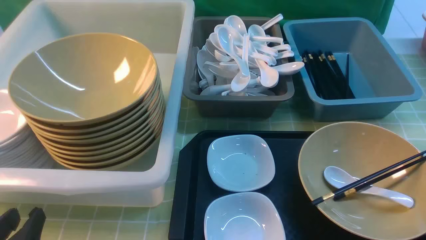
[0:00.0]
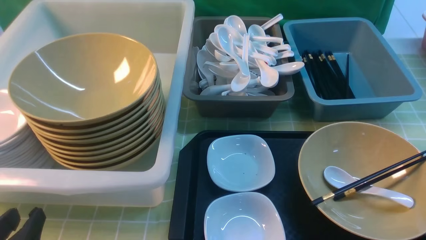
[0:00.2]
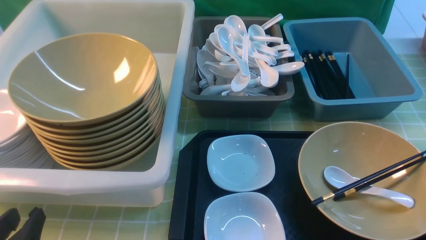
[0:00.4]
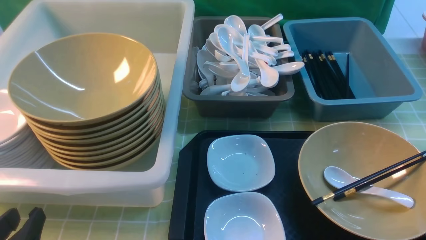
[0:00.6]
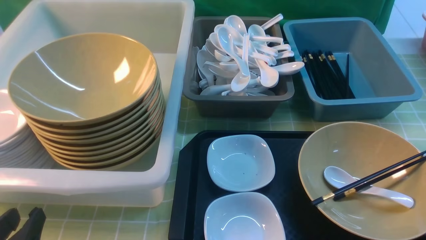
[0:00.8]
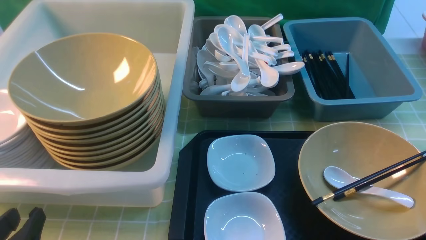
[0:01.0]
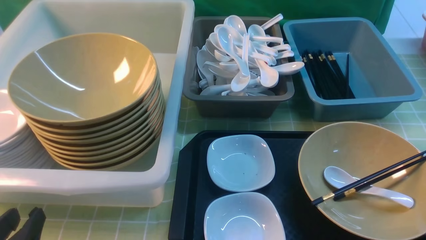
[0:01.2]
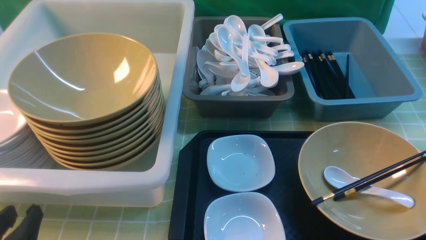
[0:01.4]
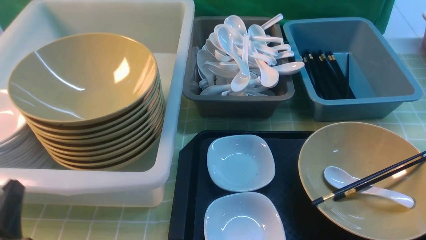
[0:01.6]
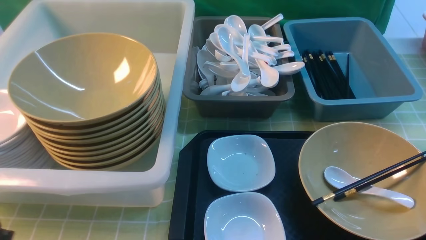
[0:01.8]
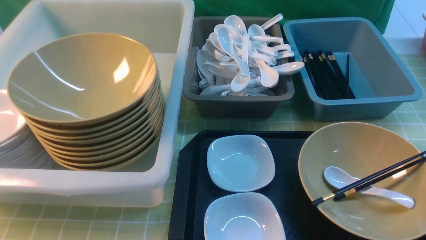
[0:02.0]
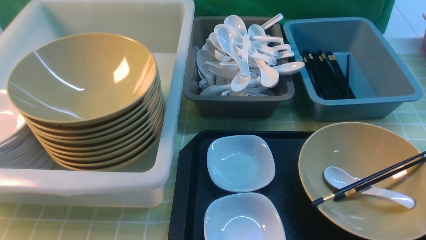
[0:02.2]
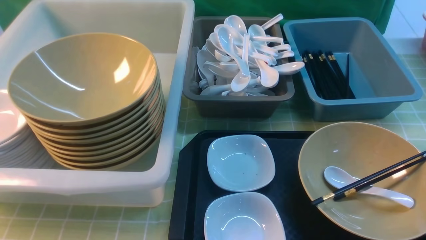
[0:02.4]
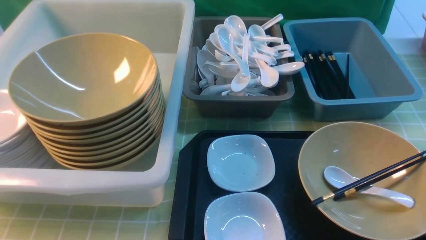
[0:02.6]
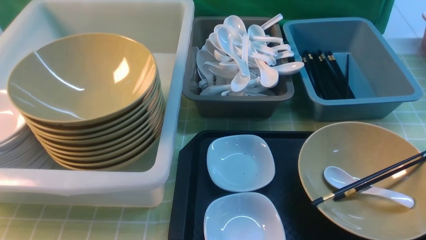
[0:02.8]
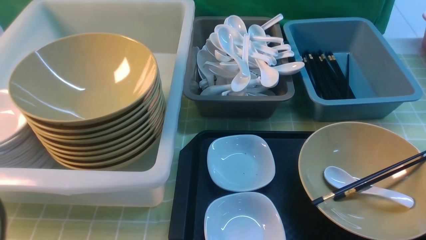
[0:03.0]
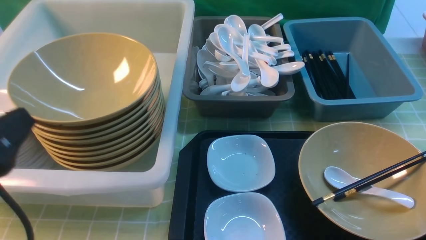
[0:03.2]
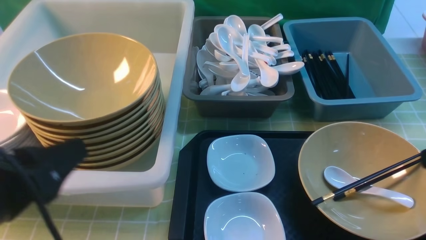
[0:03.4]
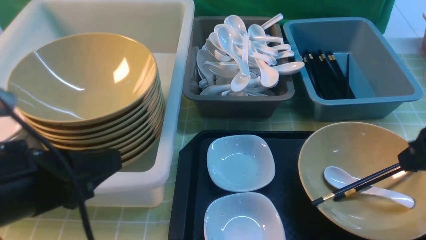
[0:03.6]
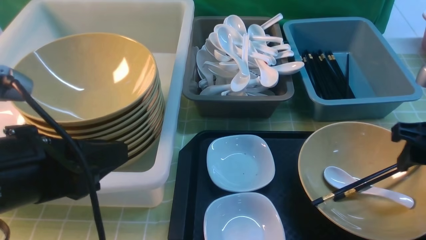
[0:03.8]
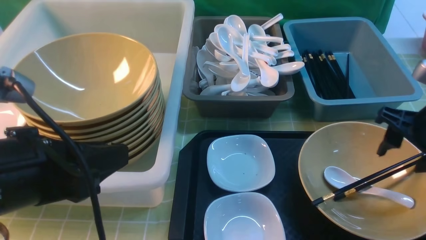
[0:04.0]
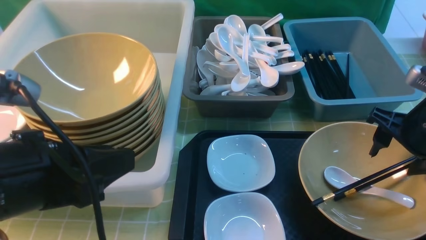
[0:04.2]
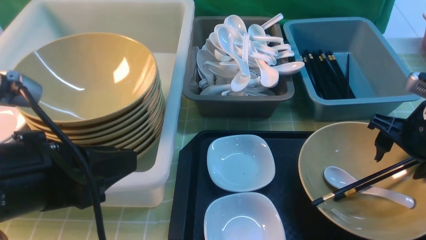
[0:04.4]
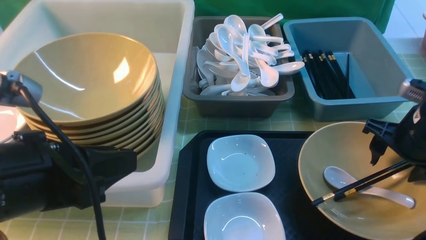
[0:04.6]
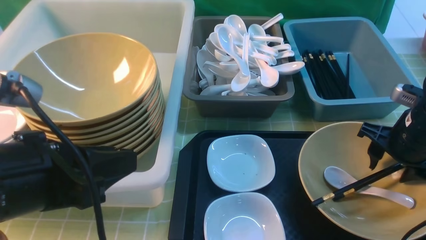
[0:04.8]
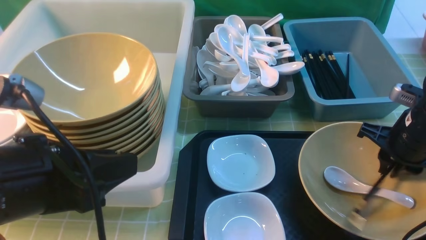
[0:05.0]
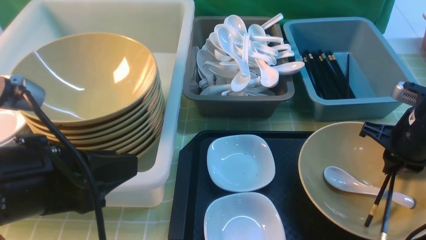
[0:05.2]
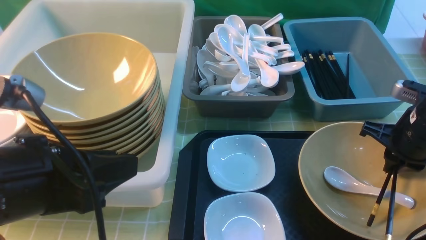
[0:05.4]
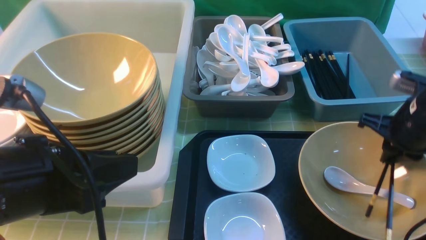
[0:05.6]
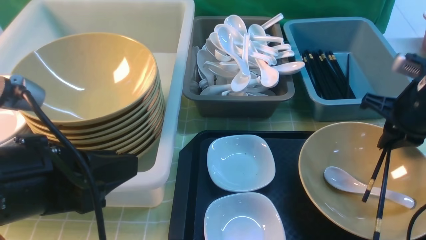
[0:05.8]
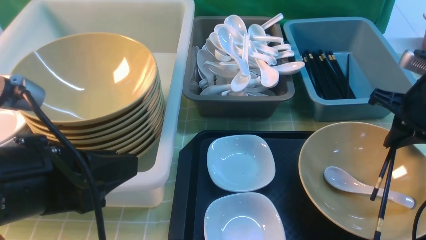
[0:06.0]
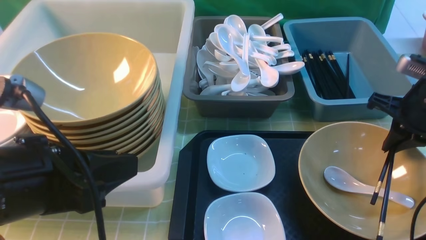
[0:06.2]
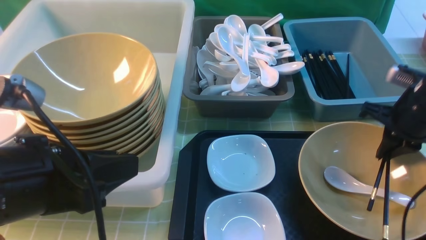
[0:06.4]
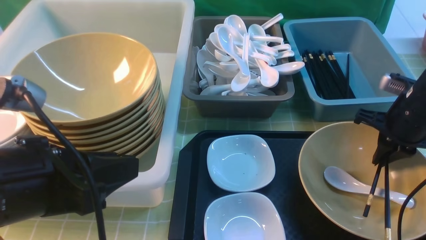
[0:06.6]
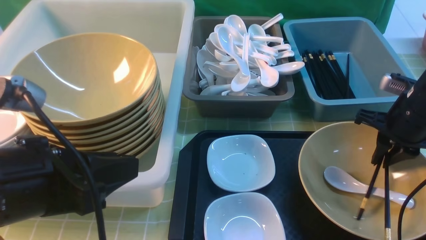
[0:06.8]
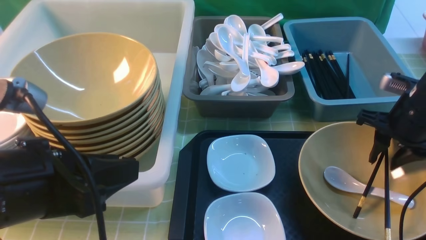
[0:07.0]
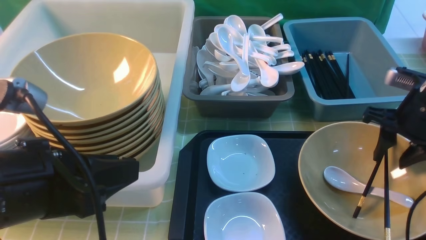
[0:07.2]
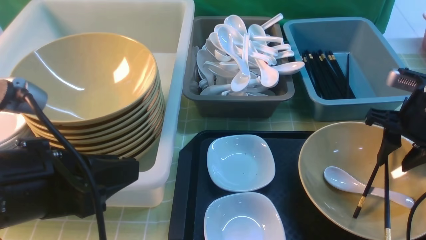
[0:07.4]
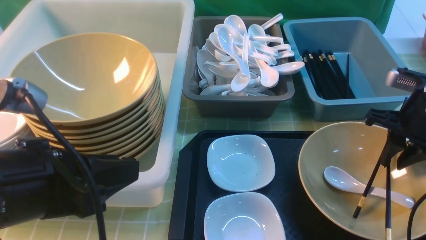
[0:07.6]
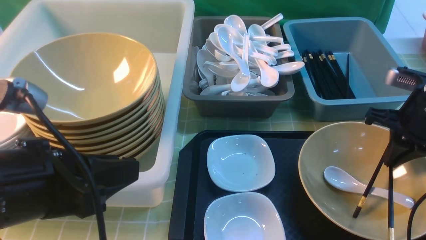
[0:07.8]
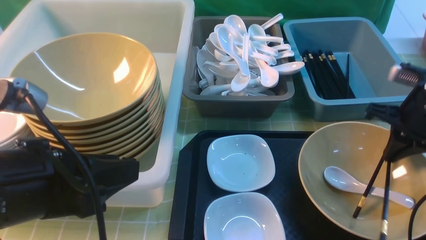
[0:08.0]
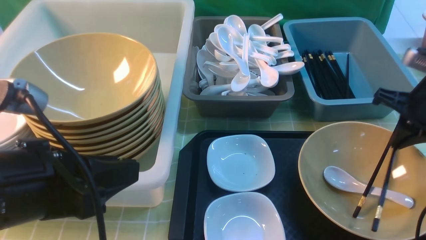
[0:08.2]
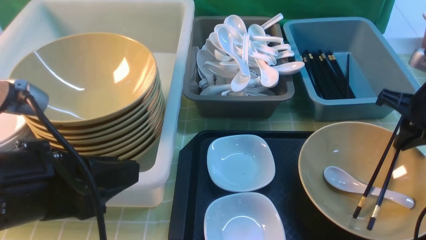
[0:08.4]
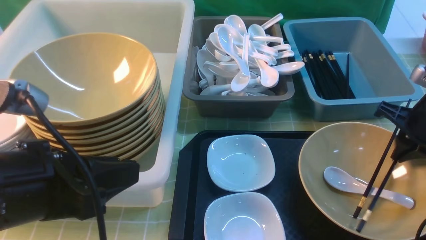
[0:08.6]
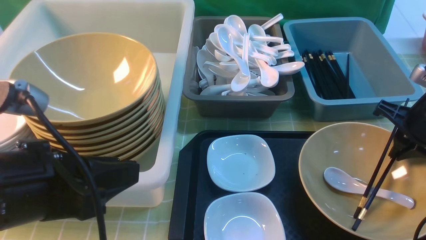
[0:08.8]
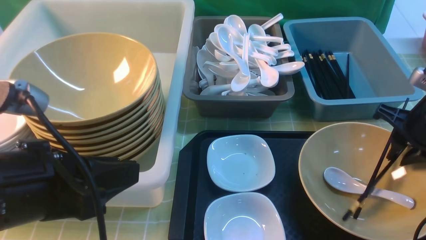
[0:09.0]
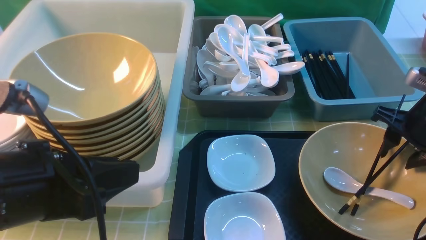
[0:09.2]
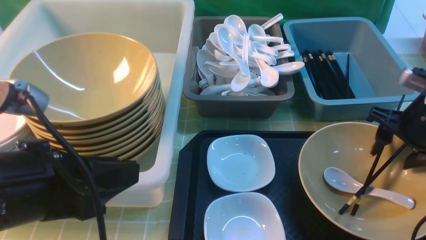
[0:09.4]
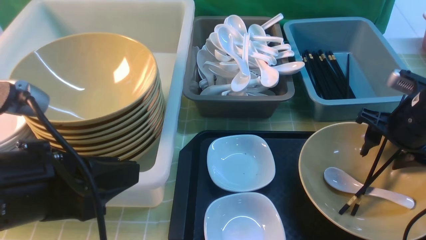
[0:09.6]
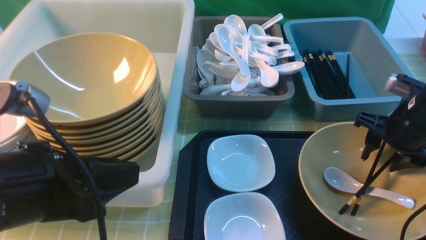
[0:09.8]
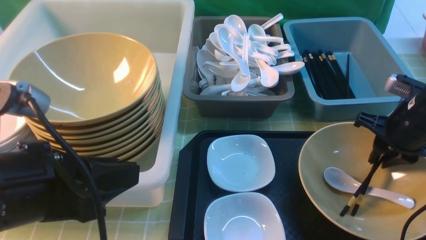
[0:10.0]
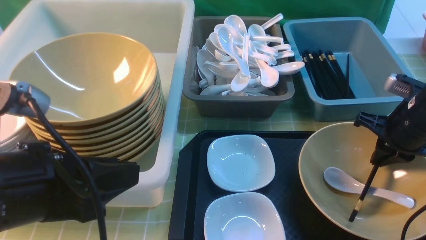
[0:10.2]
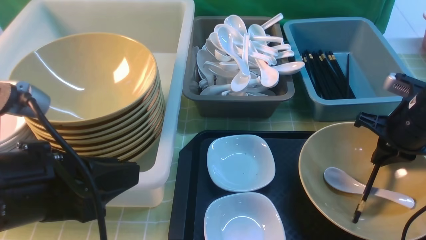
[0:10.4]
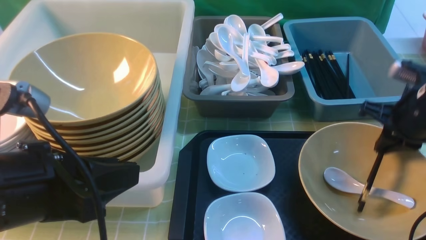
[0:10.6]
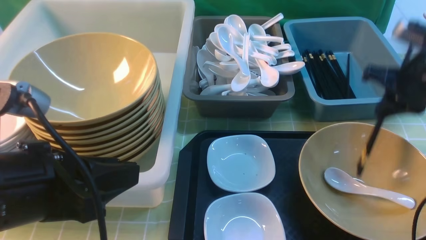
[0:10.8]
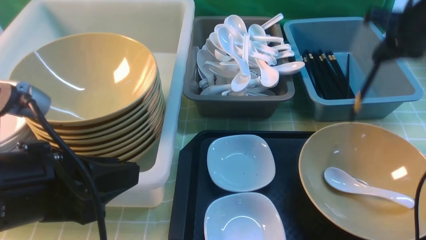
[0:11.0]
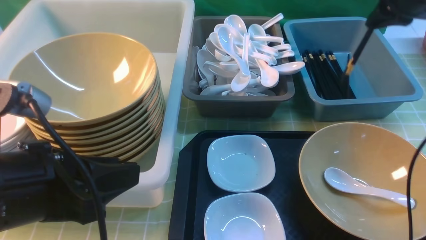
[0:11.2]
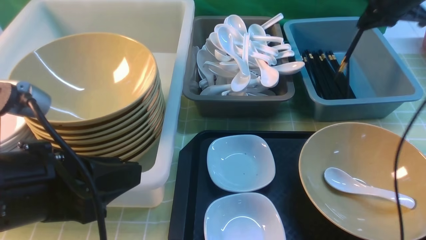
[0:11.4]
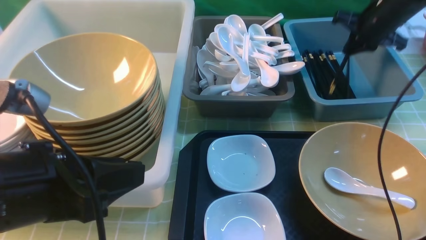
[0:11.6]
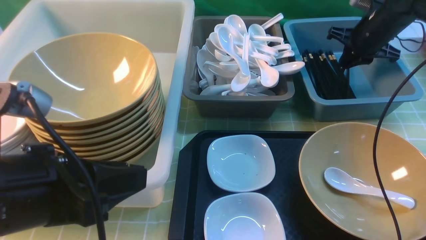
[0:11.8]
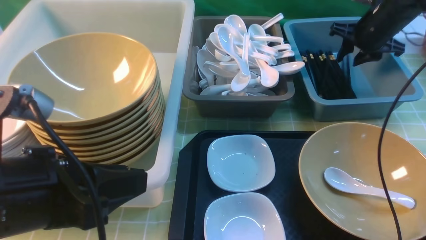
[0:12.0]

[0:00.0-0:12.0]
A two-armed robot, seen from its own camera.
Task of the whole recording: on green table put chopsticks spoon bowls plates into blue grey white boxes.
Step, 0:00.0 to 0:10.6: use the right arm to grab the chopsticks.
0:00.0 to 0:01.6: The grippers stay close to where they were, moving slightly.
0:01.6 to 0:03.0: The left gripper travels upward by roughly 15 cm.
0:03.0 to 0:04.4: The left gripper heads to the right, covering roughly 5 cm. Meanwhile the right gripper travels forward and downward by roughly 20 cm.
0:04.4 to 0:06.0: The right gripper closes.
0:06.0 to 0:09.0: The grippers move only a little.
0:09.0 to 0:10.4: The right gripper opens and closes again.
0:10.4 to 0:12.0: The right gripper goes some 20 cm forward, and opens up.

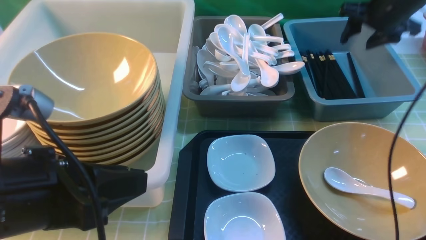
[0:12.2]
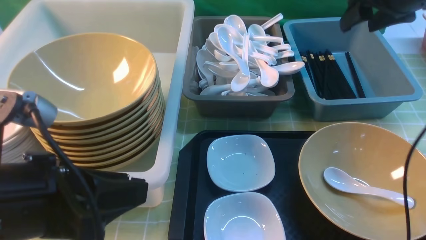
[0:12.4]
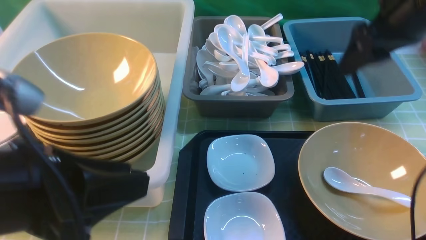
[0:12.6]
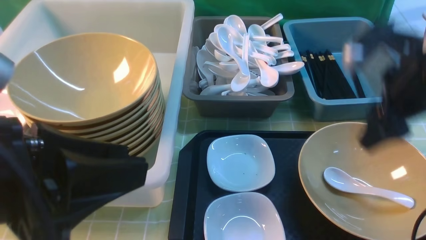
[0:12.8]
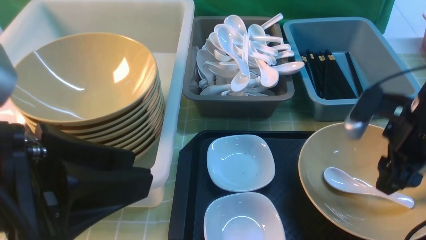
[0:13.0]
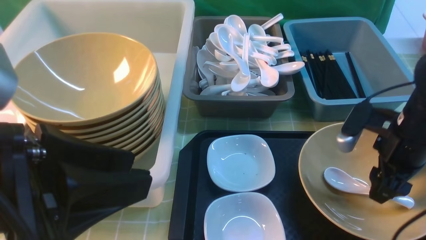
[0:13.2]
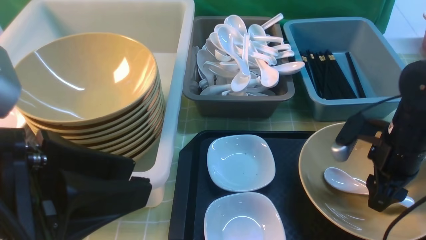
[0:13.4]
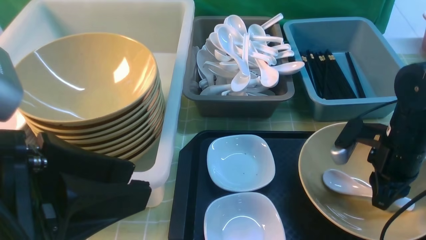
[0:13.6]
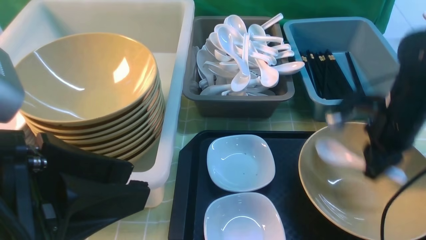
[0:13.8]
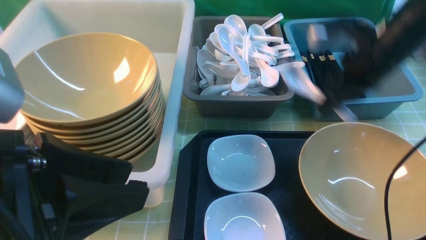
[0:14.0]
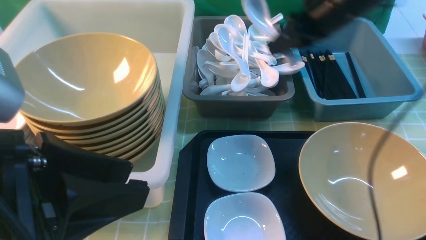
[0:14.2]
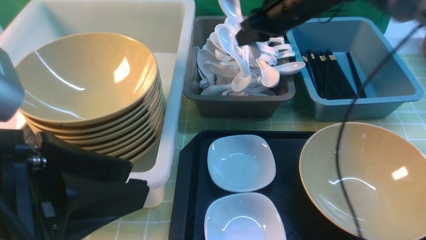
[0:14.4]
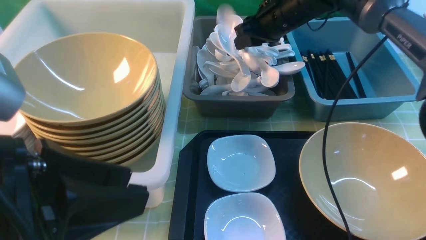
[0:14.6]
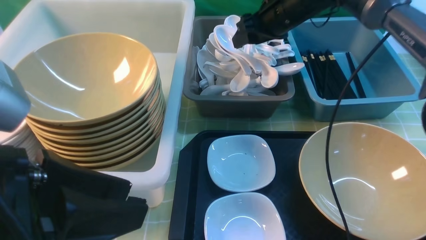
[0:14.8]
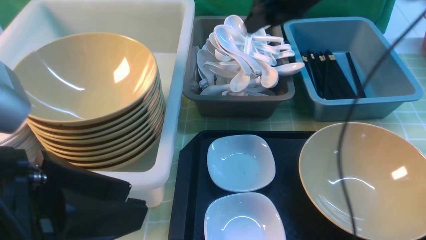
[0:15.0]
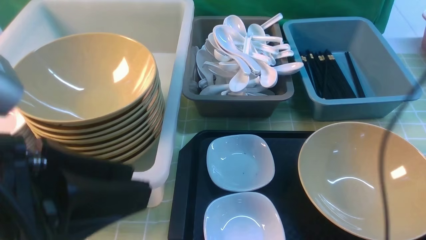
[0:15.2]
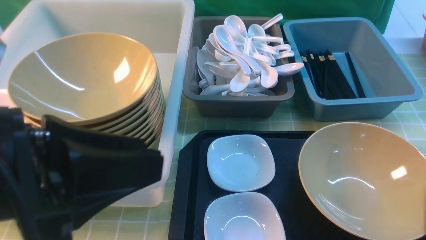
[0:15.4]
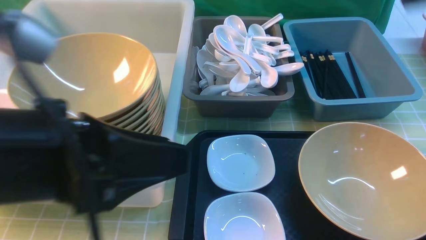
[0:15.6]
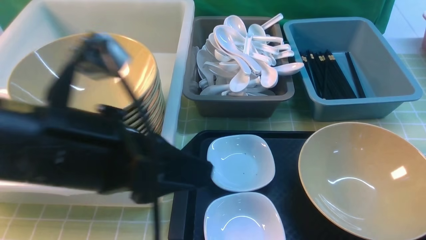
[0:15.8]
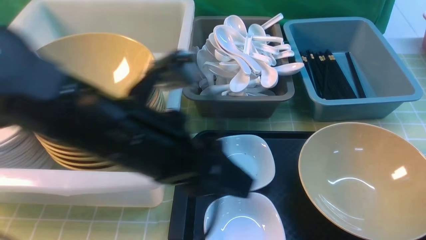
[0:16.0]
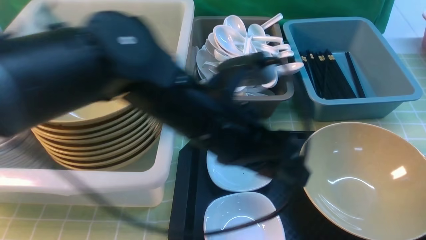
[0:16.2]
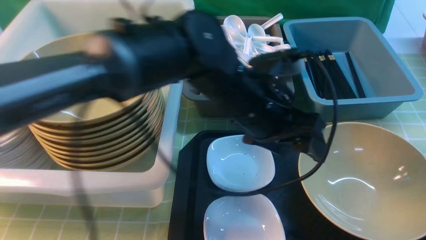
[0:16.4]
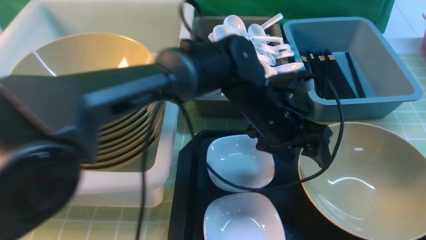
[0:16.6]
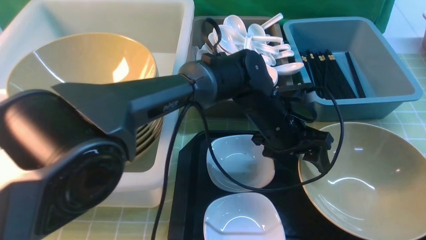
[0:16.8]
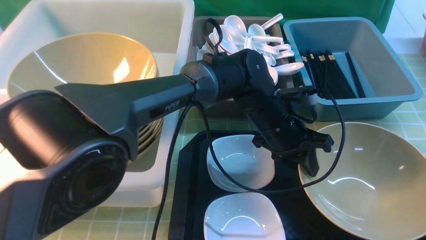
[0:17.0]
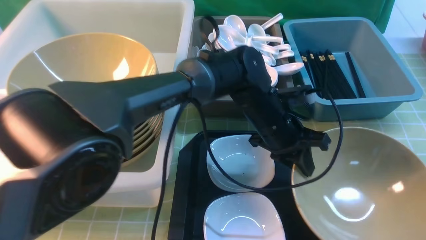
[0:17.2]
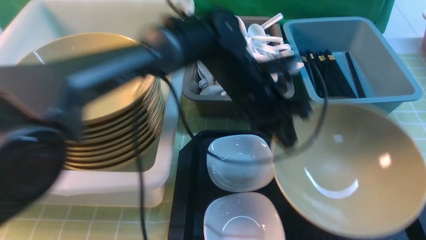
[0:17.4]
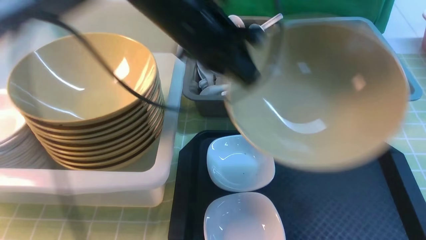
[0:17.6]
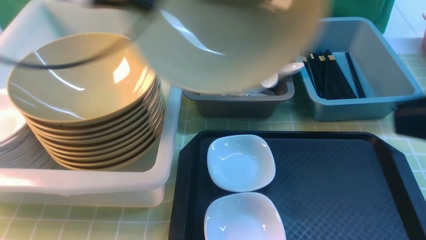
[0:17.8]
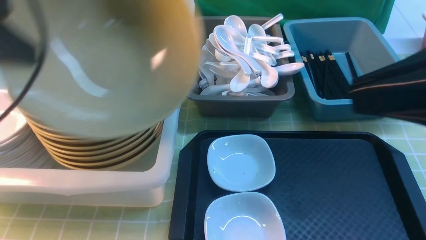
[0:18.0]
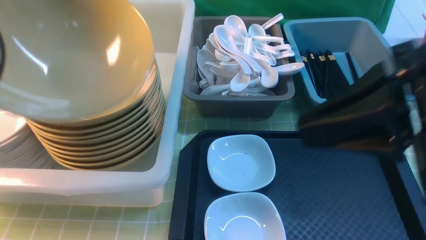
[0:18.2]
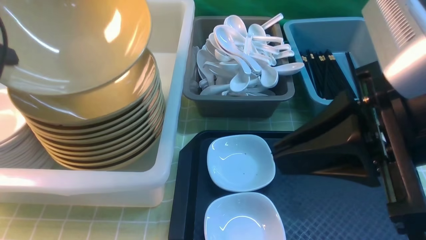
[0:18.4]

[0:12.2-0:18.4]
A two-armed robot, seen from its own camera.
Task of the whole recording: on green table put chopsticks spoon bowls plates into blue grey white boxes.
Step, 0:12.8 to 0:13.8: use the right arm to grab the soup spoon in the middle.
Step, 0:14.0 to 0:15.4: use the right arm to put the soup spoon into the small storage box in the middle.
Step, 0:15.6 to 0:17.4: use the left arm to grab the yellow noodle bowl on the left.
0:12.2 to 0:13.8: The left gripper is displaced upward by approximately 5 cm. Meanwhile the right gripper moves up and down over approximately 15 cm, changing direction 2 times, and closes up.
0:13.8 to 0:15.4: The right gripper moves upward, roughly 25 cm, and opens, then closes once more.
0:15.4 to 0:16.8: The right gripper is displaced backward and downward by roughly 30 cm, while the left gripper is displaced to the right, forward and downward by about 40 cm.
0:16.8 to 0:18.4: The right gripper moves forward, to the left and upward, about 20 cm. Meanwhile the left gripper moves to the left and upward, about 50 cm, and closes up.
